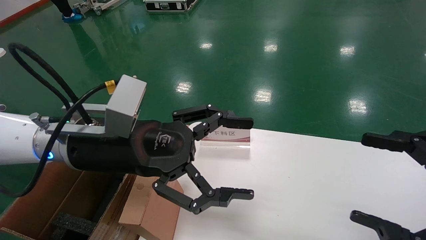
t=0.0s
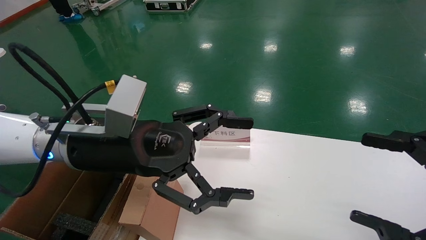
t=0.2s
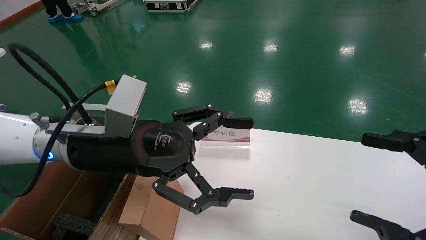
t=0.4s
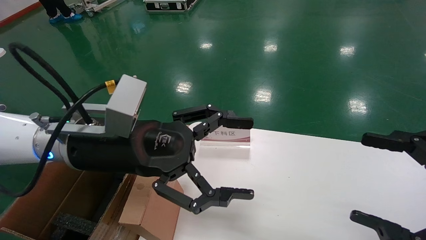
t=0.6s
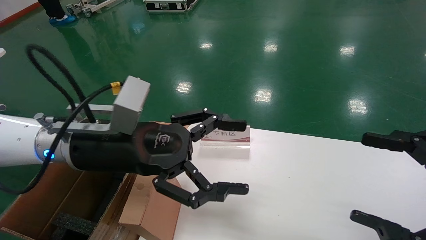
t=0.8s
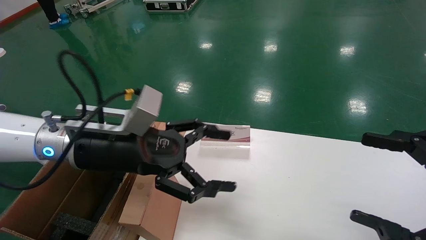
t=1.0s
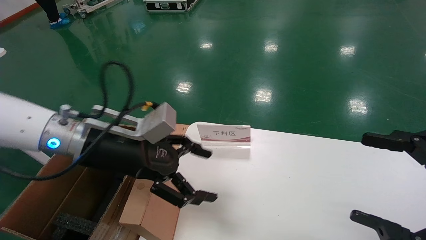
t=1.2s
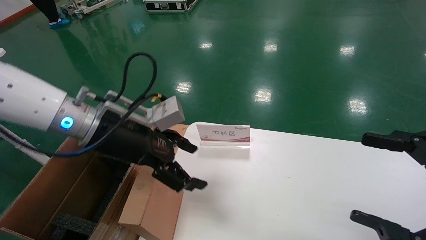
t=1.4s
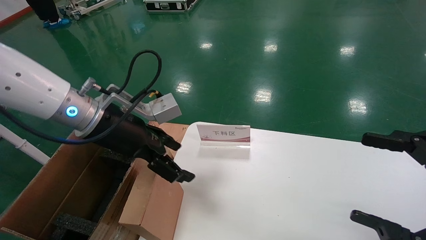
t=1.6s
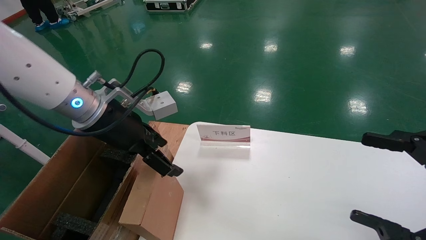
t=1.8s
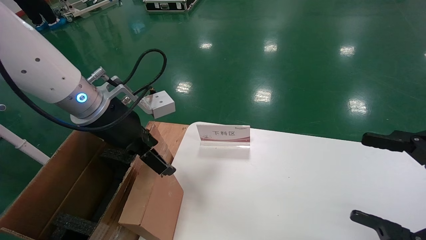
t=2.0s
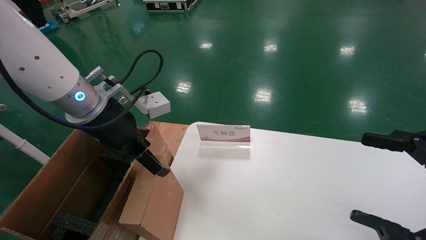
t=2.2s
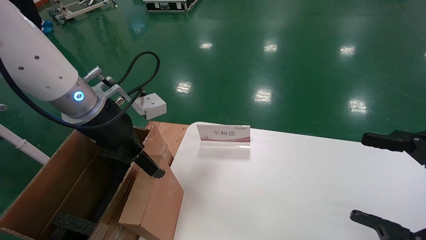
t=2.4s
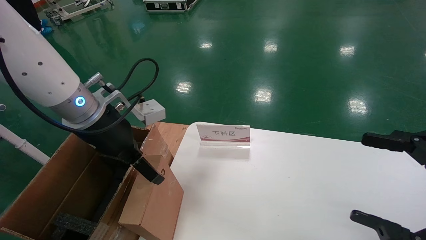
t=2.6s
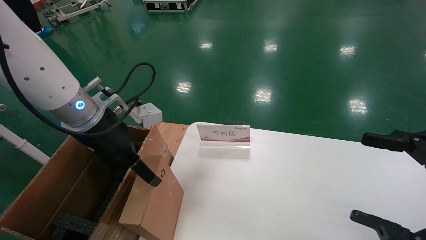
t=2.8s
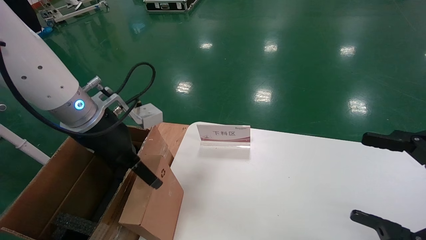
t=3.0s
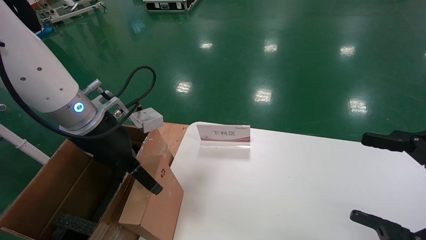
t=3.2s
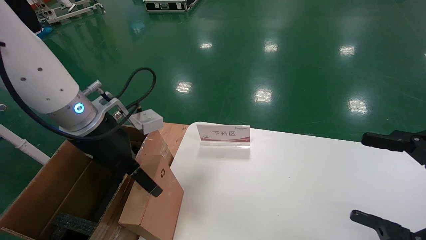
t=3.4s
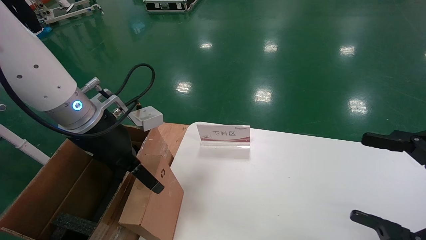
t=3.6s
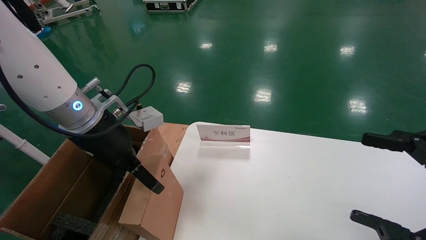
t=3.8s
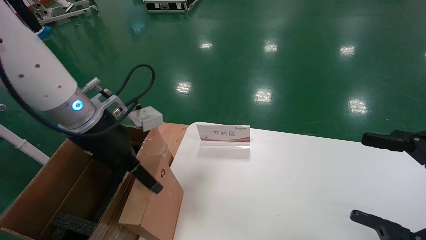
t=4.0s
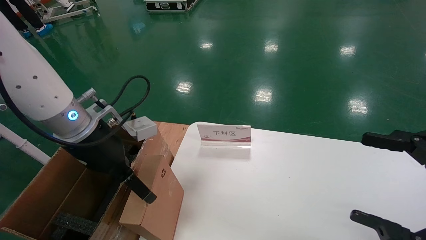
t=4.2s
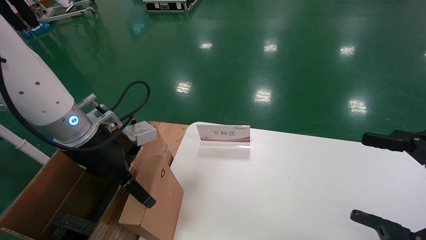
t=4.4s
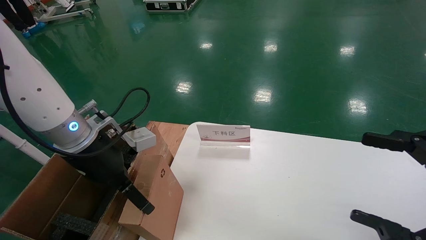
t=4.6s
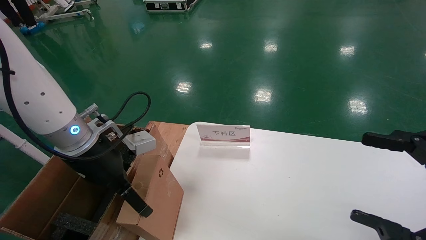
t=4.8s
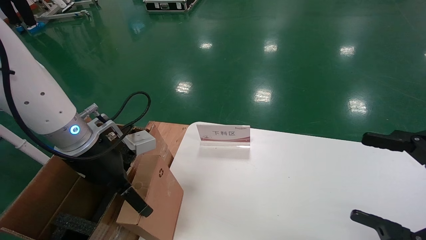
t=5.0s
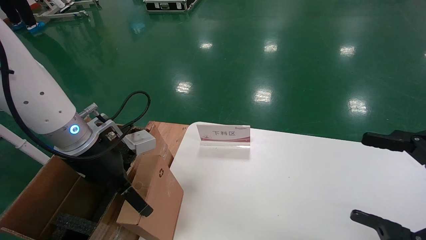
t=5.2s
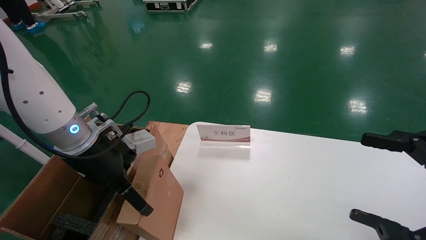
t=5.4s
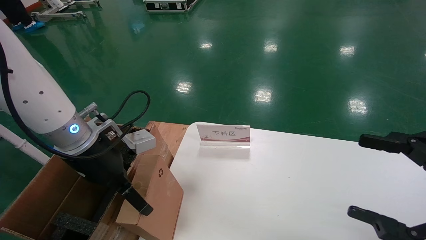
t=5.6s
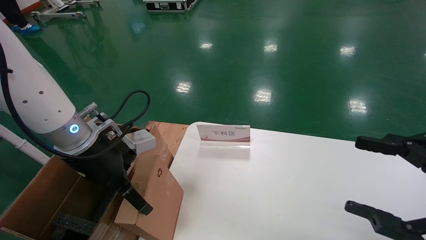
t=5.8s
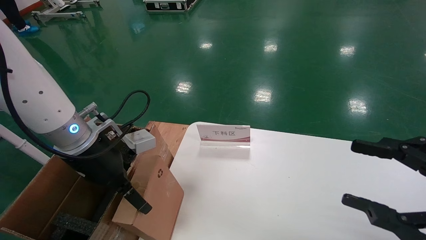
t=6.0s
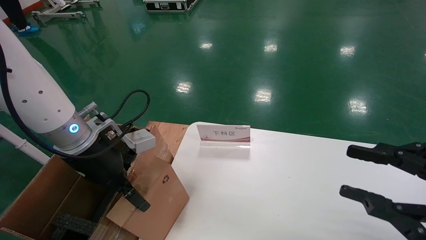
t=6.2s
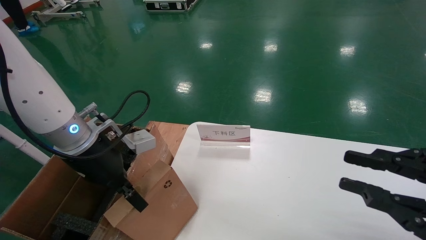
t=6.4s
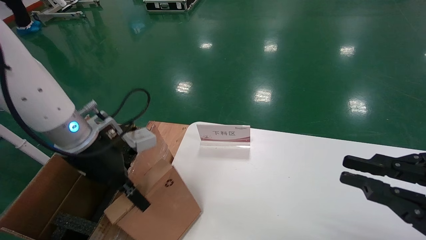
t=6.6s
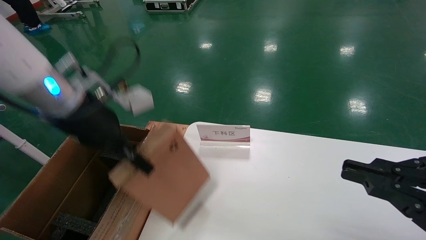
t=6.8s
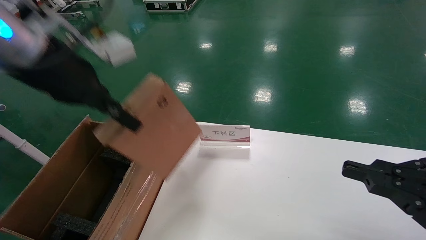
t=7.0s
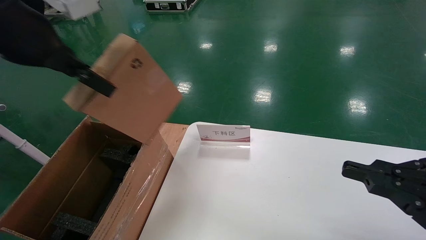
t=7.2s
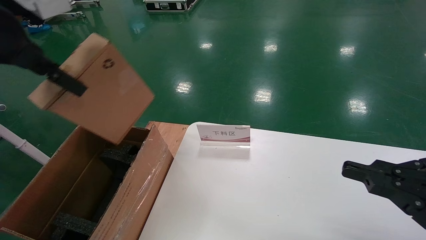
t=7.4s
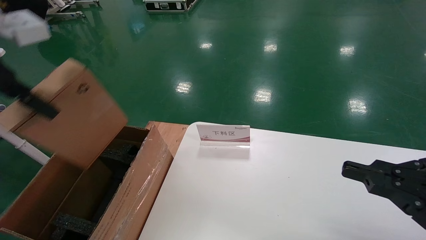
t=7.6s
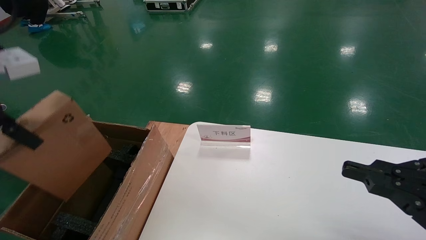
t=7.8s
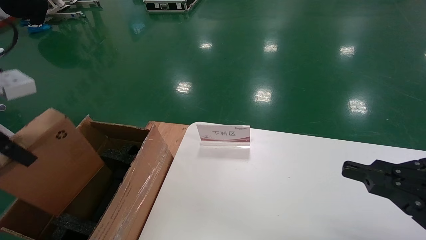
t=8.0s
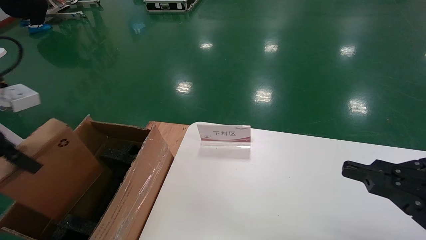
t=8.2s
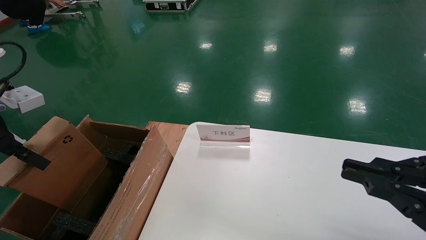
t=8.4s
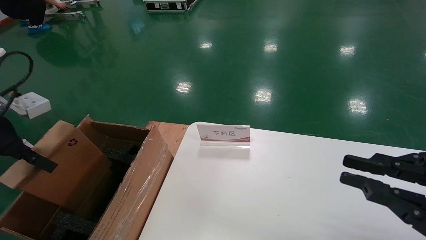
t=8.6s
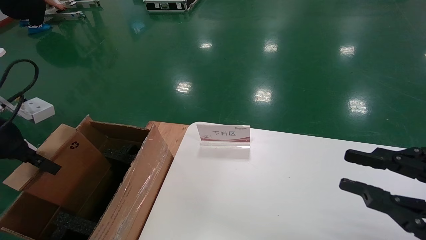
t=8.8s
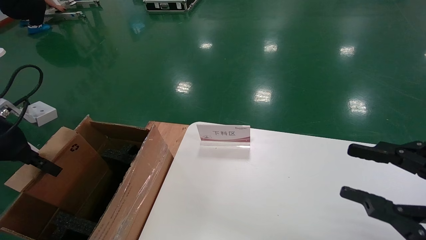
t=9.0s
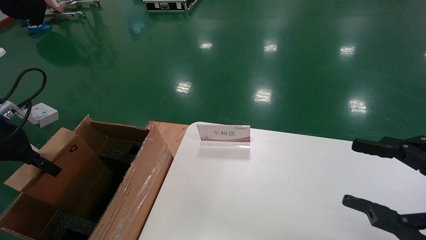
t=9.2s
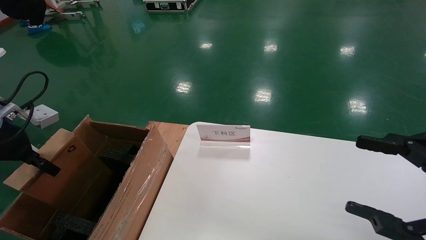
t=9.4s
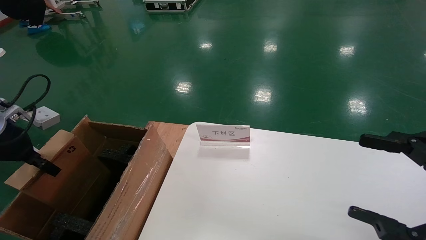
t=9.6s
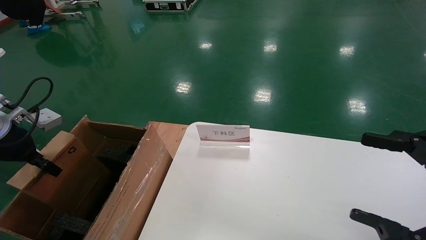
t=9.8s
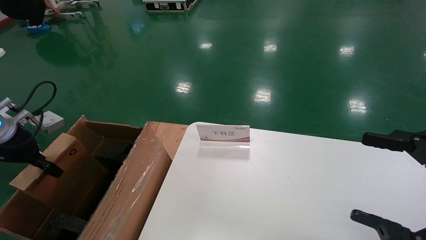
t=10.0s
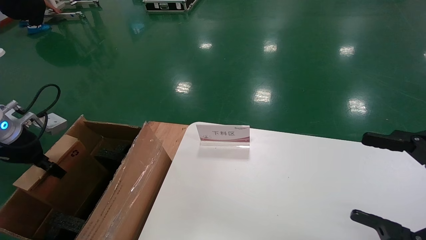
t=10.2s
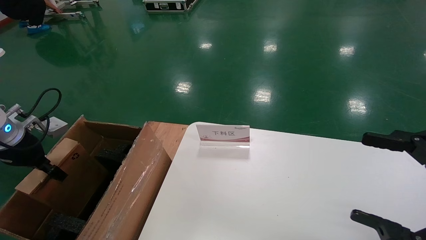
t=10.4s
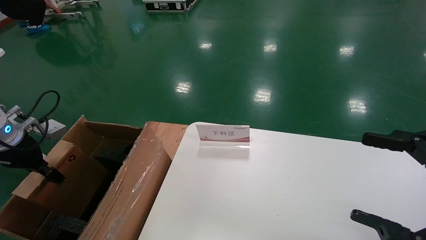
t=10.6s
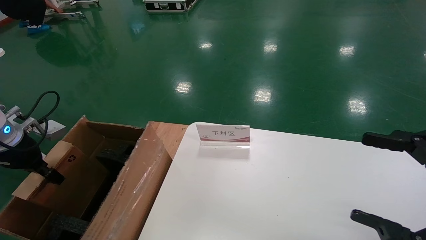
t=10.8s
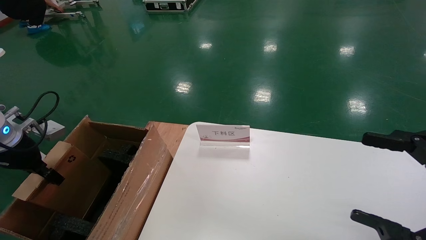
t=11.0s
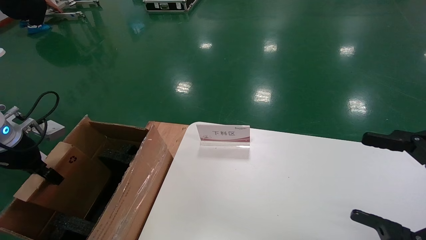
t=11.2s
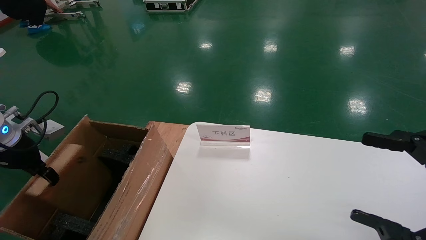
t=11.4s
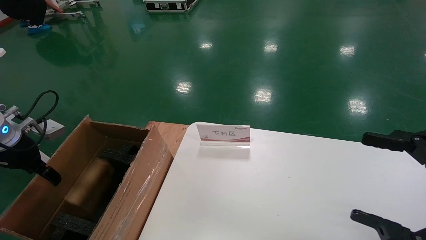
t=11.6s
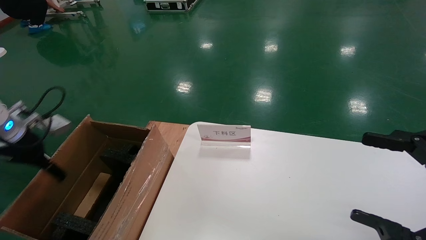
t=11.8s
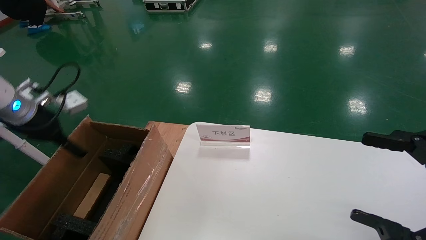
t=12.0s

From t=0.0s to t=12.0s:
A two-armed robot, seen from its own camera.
Task of the whole recording: pick up the small cardboard box and load it into the large cardboard box.
Step, from t=0.8s to t=6.8s: Pick up the mouse and power cord box.
Step, from t=7.0s to t=11.8s: Place the mouse and power cord box into the case.
From t=0.0s to t=1.6s: The left gripper travels forward by roughly 5 cm.
From t=3.0s to t=4.4s: The grippers move only a little.
From t=4.4s to t=6.0s: The two grippers keep their place.
From t=6.0s to t=7.6s: The left gripper goes some 20 cm upward, backward and to the left, and closes its fingers. The right gripper closes its fingers.
From t=7.6s to t=9.0s: The left gripper is displaced downward and to the left by approximately 15 cm; the right gripper opens its fingers.
From t=9.0s to t=10.4s: The left gripper shifts some 10 cm downward and forward. The right gripper opens.
From t=10.4s to t=12.0s: The left gripper heads upward and to the right, covering some 10 cm, and opens its fingers.

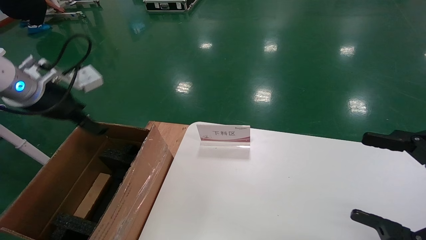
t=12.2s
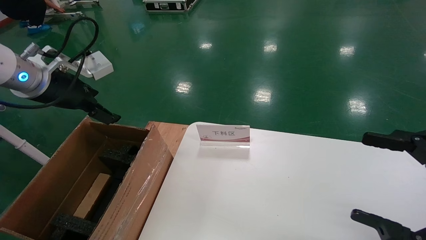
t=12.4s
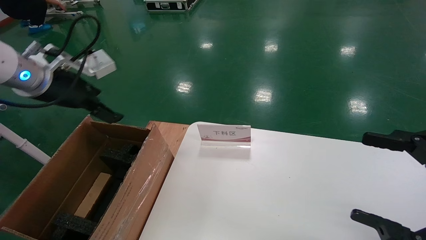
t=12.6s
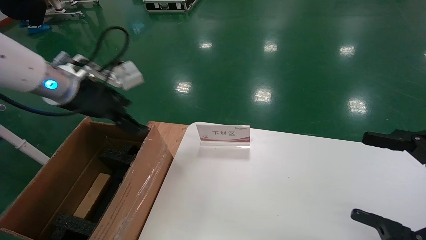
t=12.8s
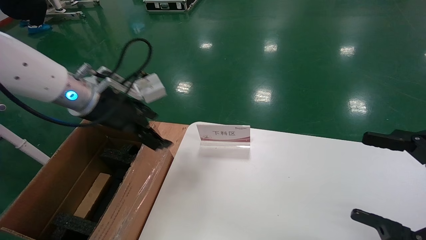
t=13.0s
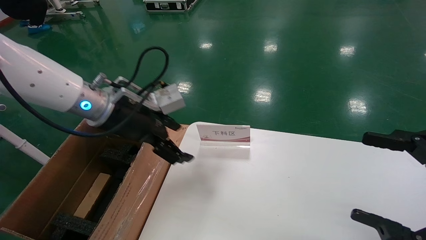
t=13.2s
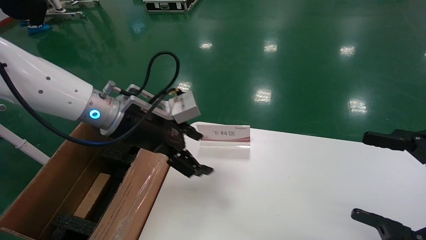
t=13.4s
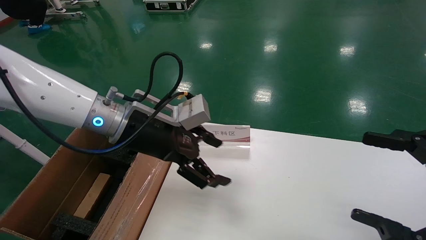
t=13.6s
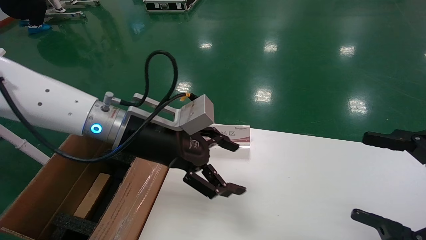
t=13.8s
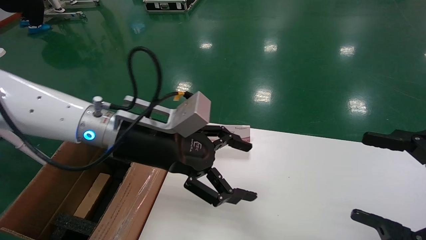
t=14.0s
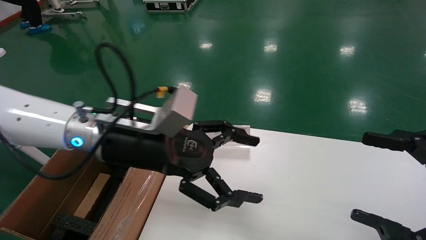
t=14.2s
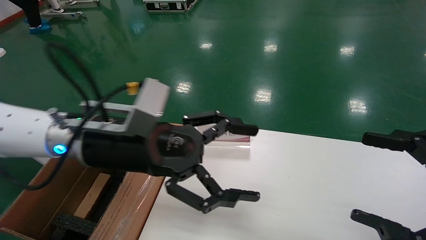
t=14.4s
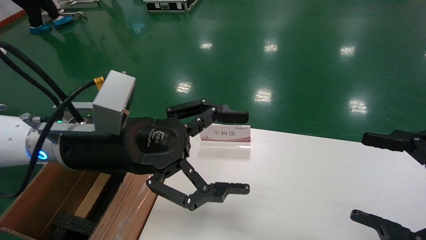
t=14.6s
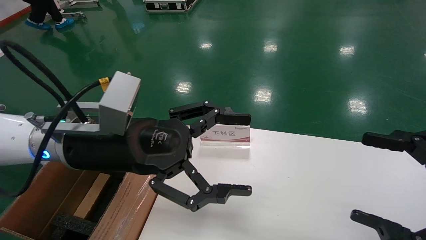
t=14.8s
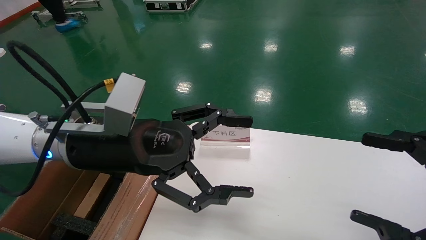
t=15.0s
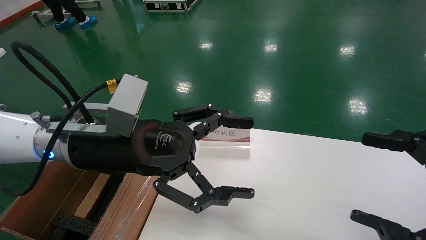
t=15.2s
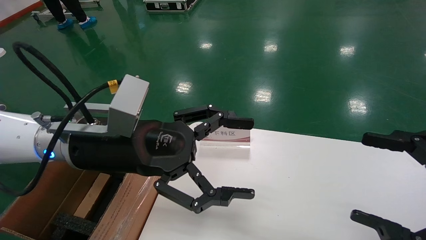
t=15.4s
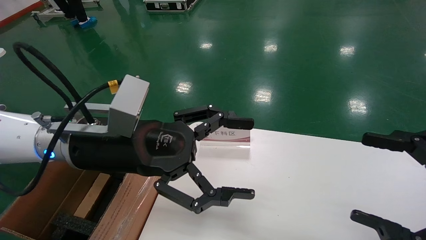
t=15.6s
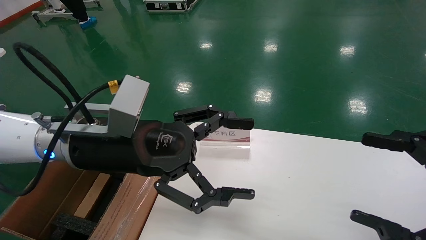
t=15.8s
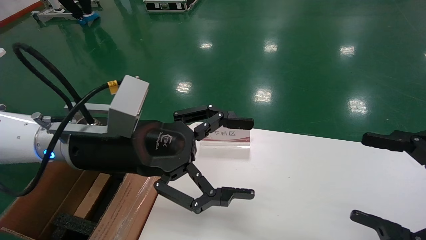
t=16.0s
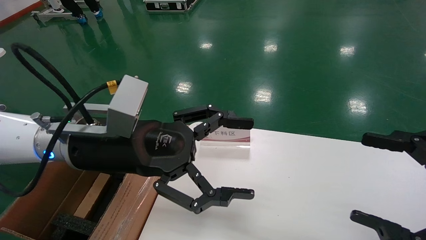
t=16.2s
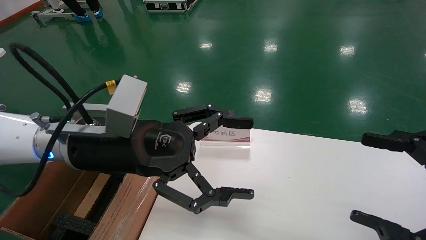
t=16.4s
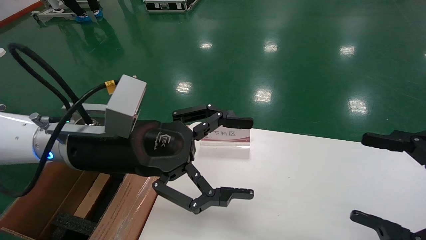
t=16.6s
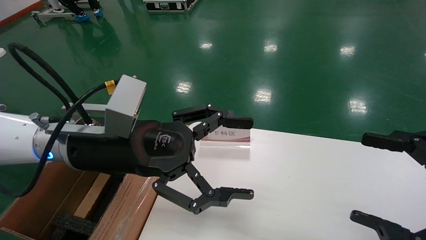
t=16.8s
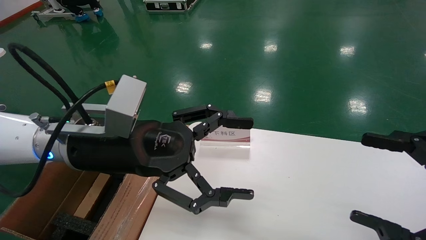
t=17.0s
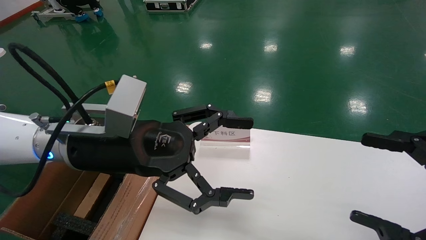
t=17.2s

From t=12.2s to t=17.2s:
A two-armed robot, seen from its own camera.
Task of the whole recording: pick up the small cardboard box and load it into the large cardboard box.
From t=12.2s to t=13.8s: The left gripper moves to the right, about 20 cm.
From t=13.8s to t=15.6s: The left gripper moves backward, about 5 cm.
From t=15.6s to t=17.2s: Both grippers stay about where they are.
